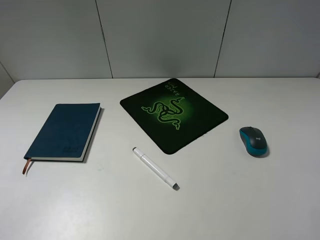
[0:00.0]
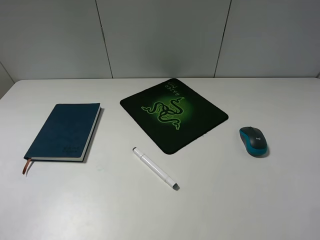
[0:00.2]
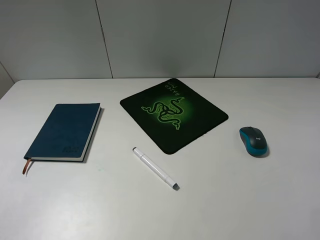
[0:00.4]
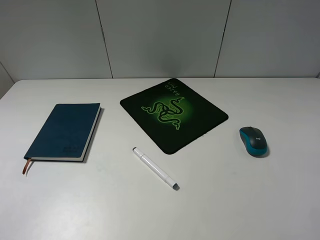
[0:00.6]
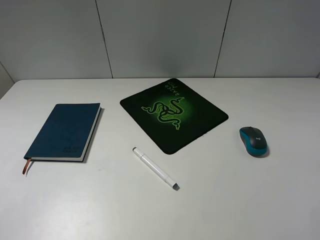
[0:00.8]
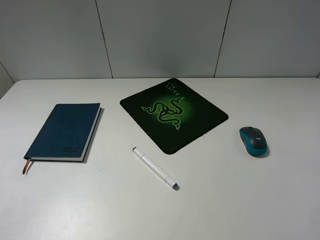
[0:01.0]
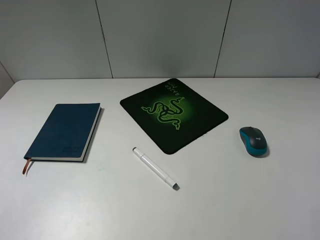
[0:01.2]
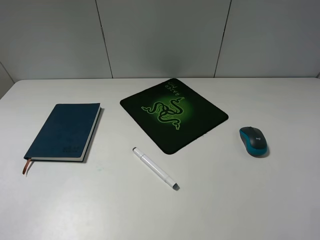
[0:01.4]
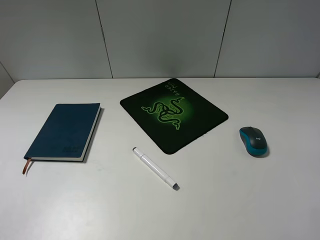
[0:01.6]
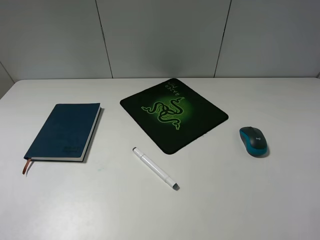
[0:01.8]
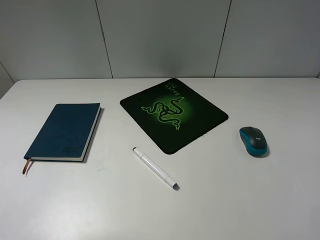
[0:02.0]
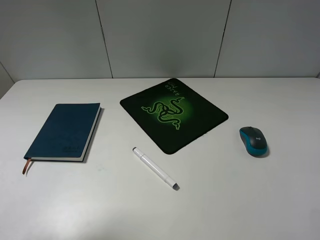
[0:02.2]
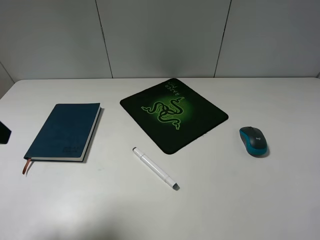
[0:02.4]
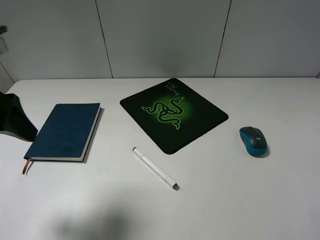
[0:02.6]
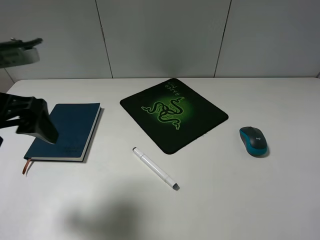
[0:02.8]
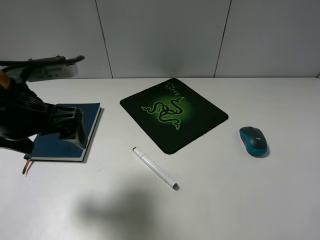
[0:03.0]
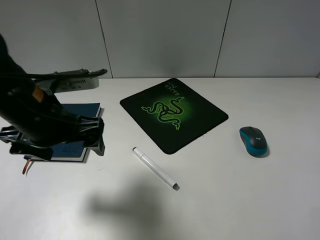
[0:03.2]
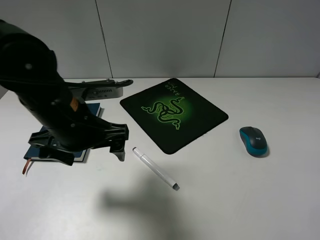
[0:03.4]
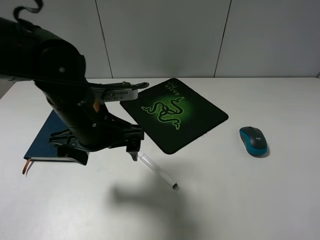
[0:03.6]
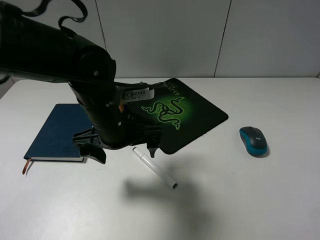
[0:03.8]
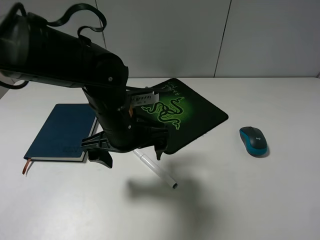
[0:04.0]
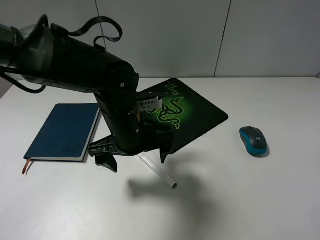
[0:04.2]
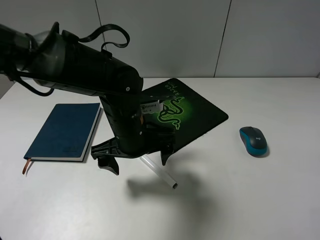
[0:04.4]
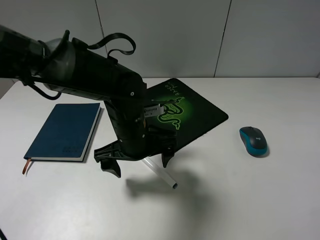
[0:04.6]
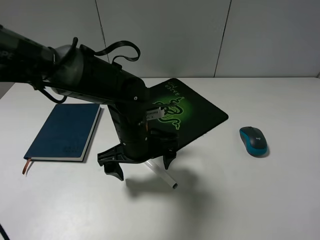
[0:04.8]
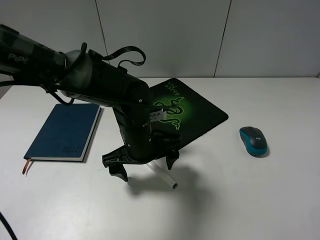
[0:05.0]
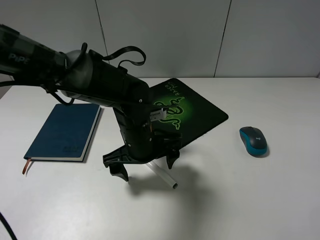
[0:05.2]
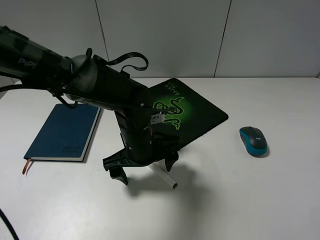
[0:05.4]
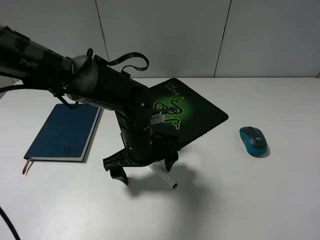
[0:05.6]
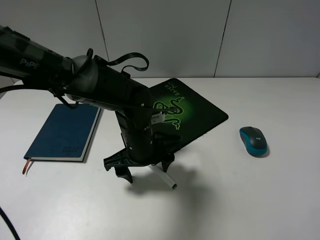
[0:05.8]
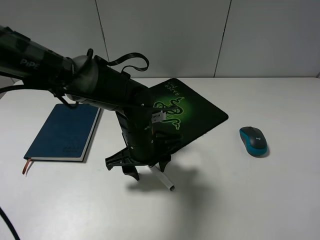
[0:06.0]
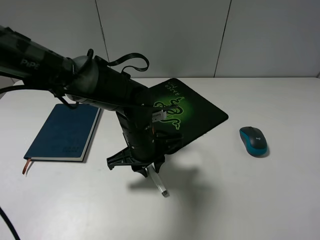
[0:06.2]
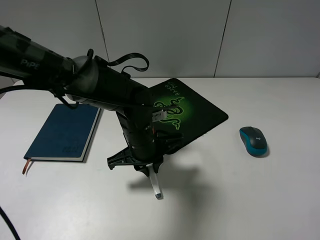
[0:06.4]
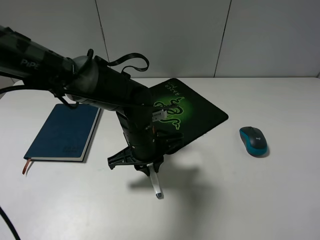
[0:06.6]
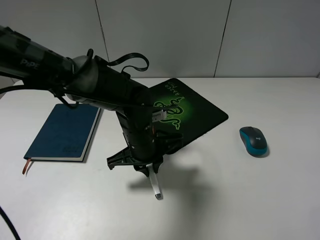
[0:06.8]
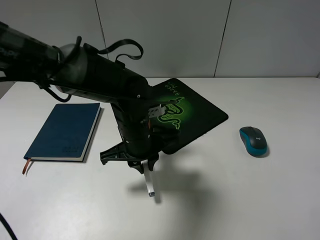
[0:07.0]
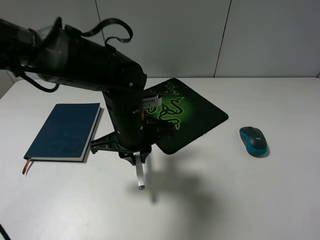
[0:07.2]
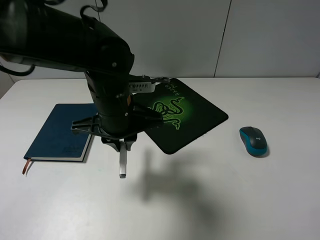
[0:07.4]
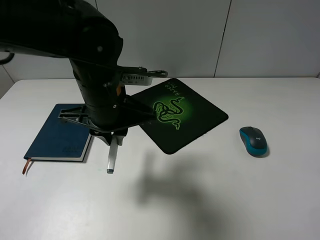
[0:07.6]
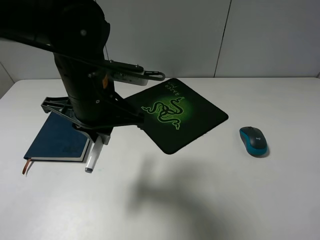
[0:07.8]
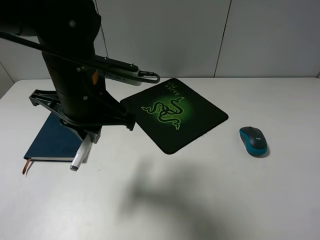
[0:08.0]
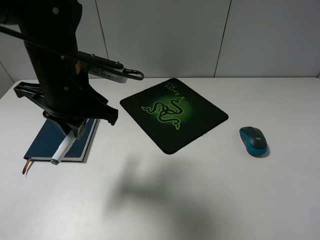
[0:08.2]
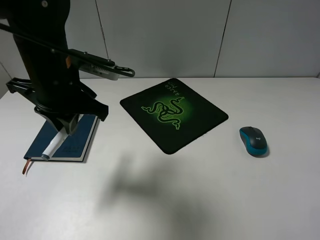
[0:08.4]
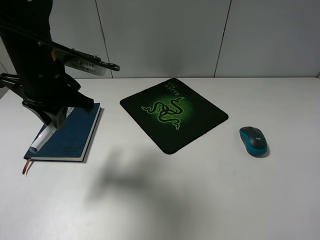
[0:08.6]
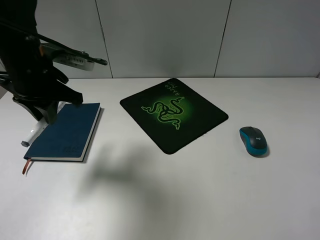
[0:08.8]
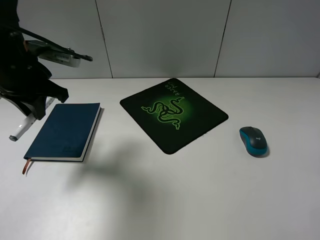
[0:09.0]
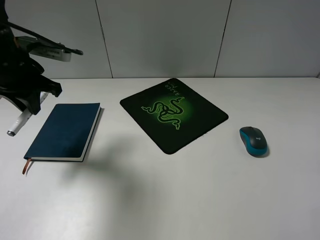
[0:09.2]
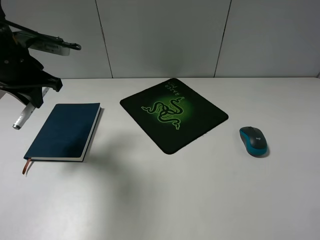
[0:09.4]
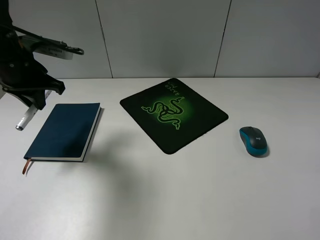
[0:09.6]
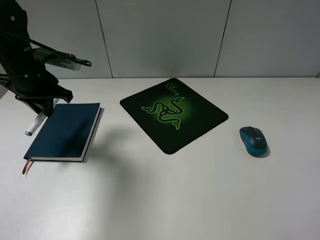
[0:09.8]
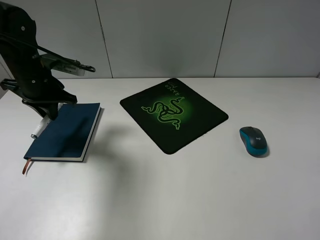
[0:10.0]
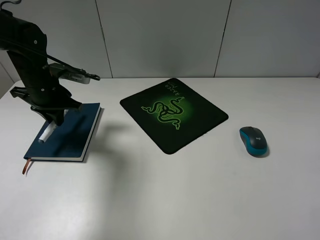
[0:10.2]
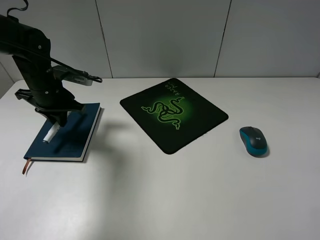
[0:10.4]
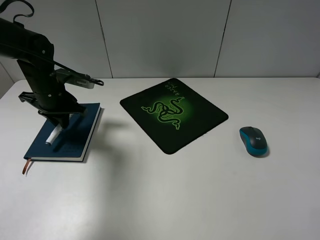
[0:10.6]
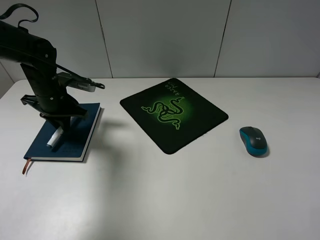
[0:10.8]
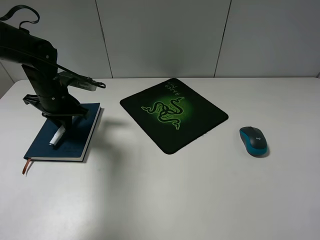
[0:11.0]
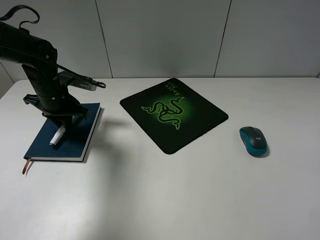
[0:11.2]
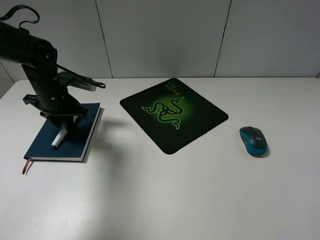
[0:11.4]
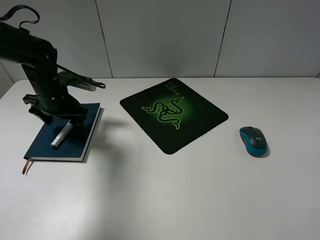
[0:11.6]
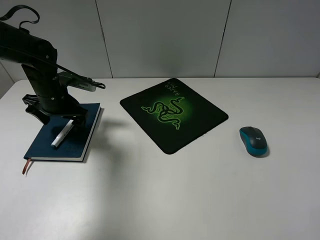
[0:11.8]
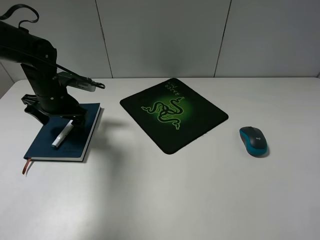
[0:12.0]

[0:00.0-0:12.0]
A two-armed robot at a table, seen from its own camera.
Step, 0:00.0 to 0:06.6: Grasp the marker with the left gripper.
Step, 0:06.8 to 0:11.6: Place the marker on the notebook with the left gripper.
0:01.6 to 0:03.0: The left gripper moves forward, to the right and downward, roughly 25 cm.
0:03.0 to 0:04.4: The left gripper goes approximately 15 cm to the right and downward.
0:04.4 to 0:06.0: The left gripper closes up.
0:06.0 to 0:07.6: The left gripper is displaced upward by roughly 10 cm, and closes its fingers.
0:07.6 to 0:09.0: The left gripper travels to the left by some 15 cm.
0:09.0 to 0:10.4: The left gripper travels downward and forward by some 10 cm.
0:10.4 to 0:12.0: The left gripper opens its fingers.

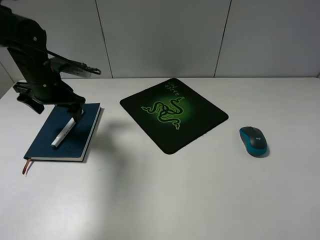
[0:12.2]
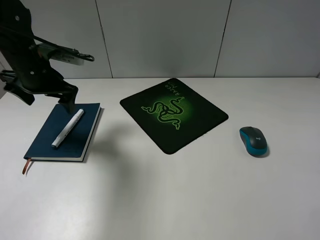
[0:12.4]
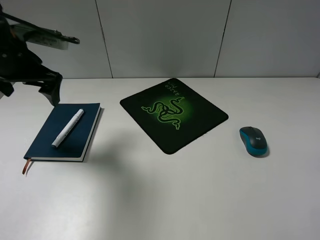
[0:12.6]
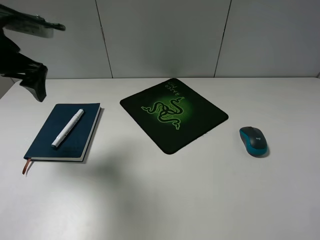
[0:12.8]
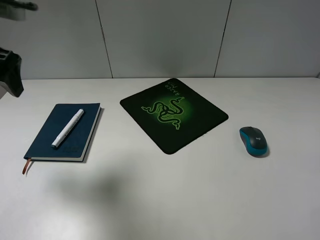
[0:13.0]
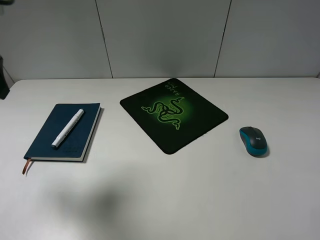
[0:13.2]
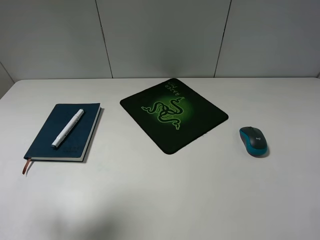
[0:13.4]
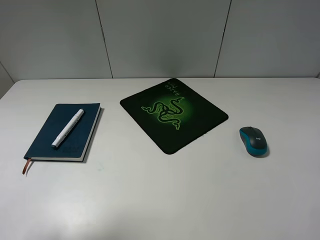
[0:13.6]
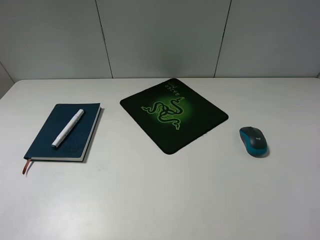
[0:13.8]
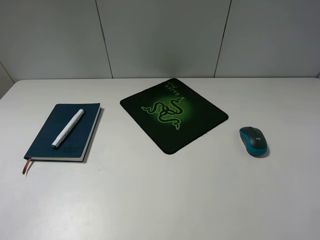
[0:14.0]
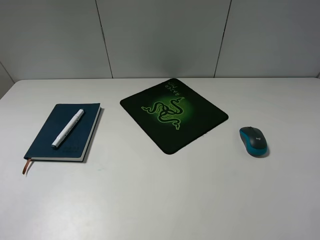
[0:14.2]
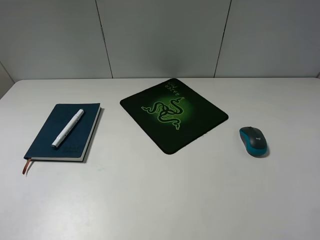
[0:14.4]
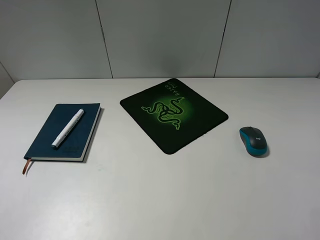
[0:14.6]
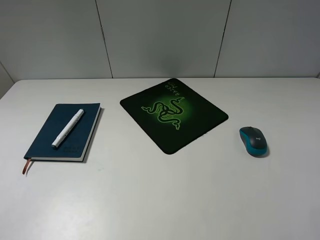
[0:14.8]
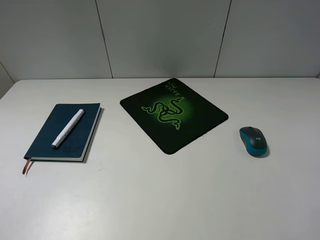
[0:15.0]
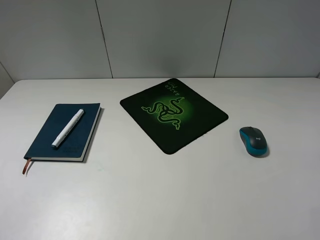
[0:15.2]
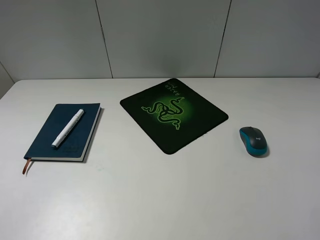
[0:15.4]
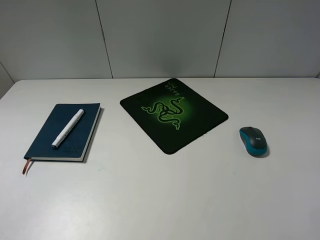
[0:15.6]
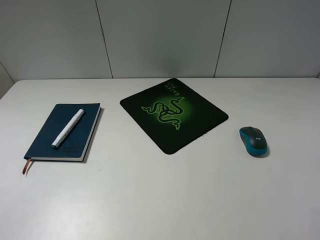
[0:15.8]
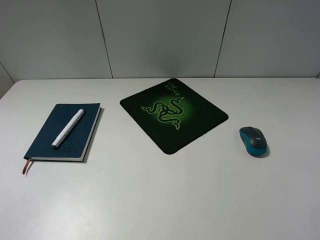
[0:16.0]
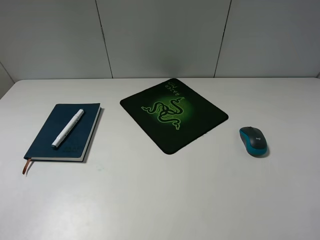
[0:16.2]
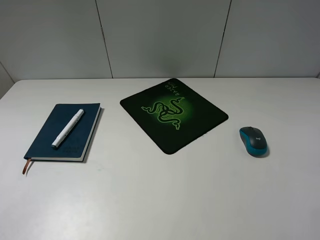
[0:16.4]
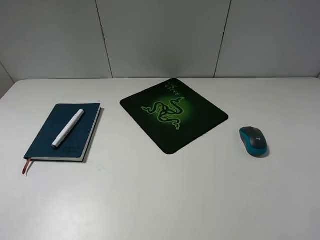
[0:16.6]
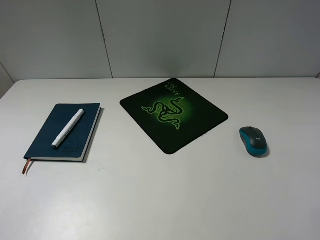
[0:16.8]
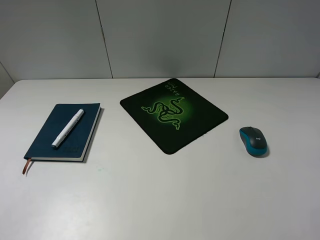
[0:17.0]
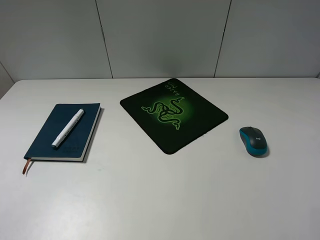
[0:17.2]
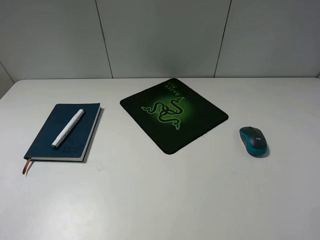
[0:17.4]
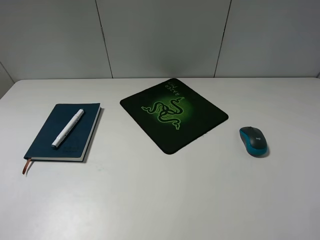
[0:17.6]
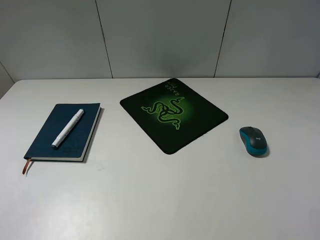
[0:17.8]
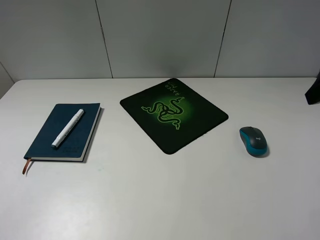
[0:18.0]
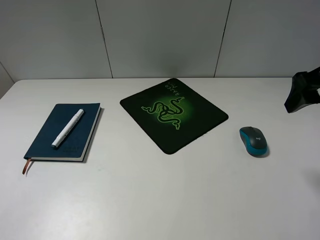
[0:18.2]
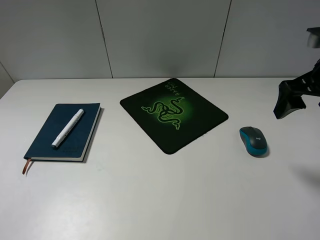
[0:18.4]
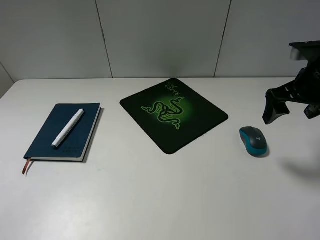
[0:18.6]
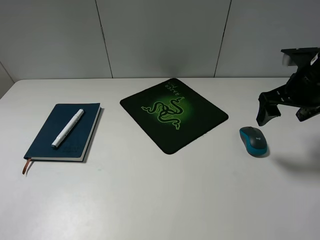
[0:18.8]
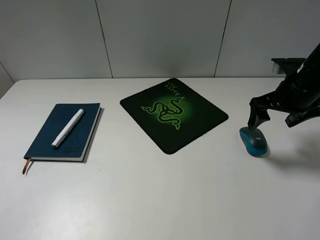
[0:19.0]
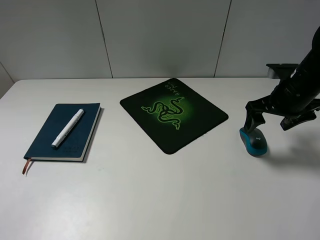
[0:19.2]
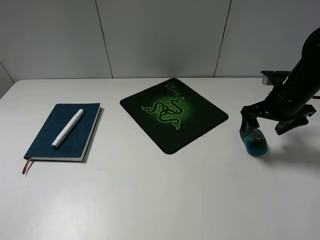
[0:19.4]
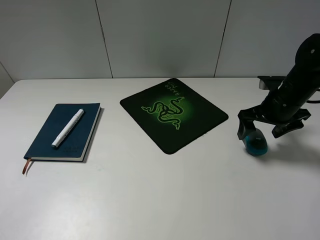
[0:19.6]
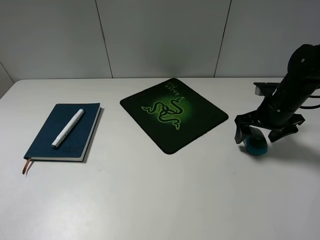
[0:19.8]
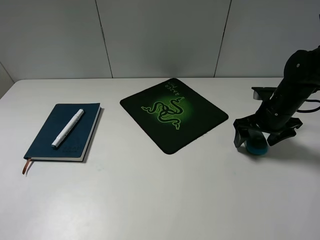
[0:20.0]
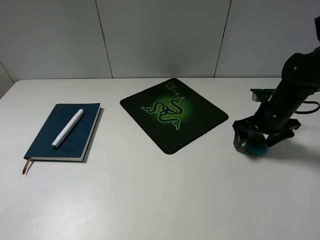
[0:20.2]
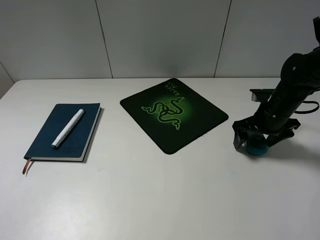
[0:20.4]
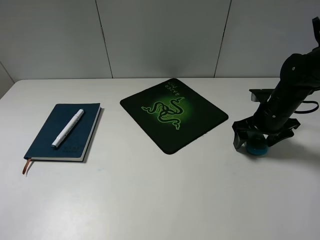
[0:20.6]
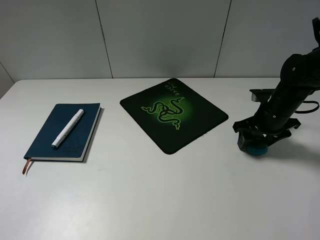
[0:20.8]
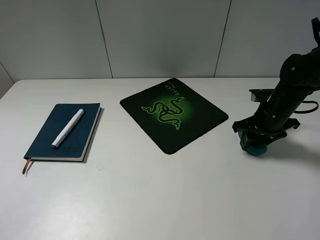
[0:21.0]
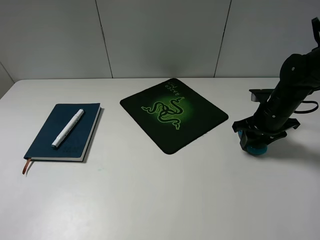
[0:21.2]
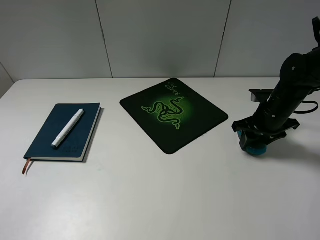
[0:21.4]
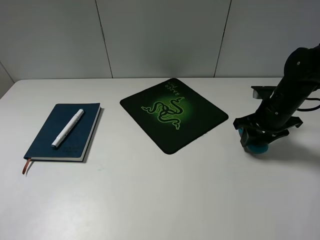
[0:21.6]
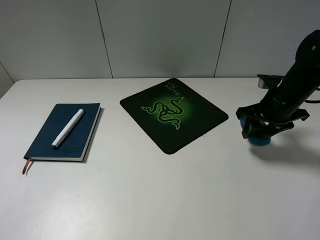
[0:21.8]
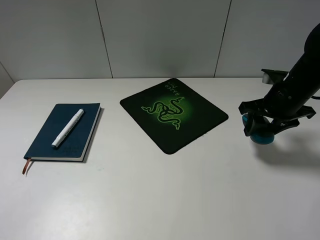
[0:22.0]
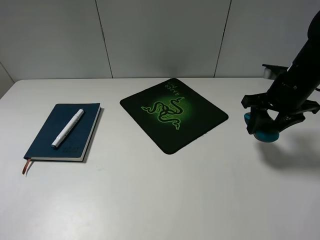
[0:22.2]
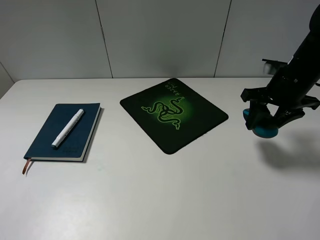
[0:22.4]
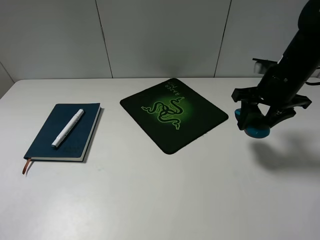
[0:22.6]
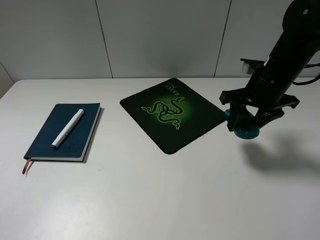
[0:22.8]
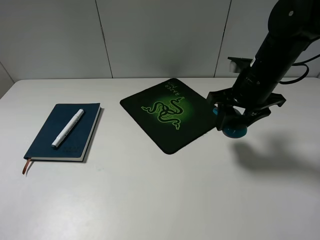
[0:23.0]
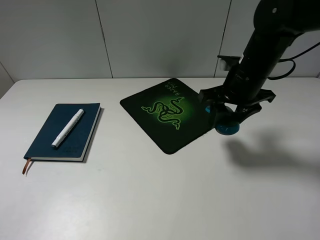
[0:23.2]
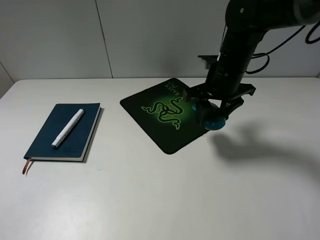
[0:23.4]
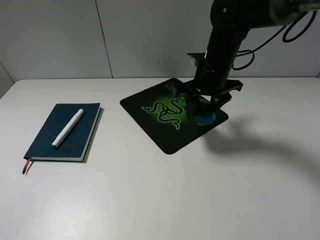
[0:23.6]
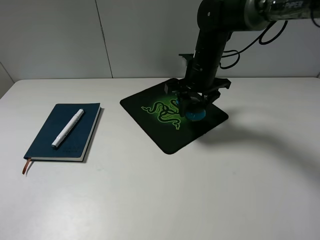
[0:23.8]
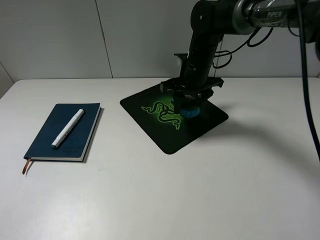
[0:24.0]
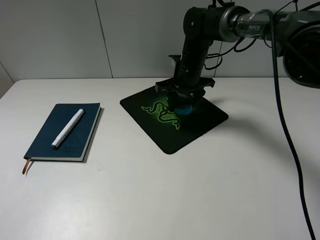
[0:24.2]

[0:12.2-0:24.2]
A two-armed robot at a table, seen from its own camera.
Step, 0:12.2 to 0:21.0: Grasp the mouse with the right gripper.
0:12.2 to 0:13.8: The left gripper travels backward and upward by some 35 cm.
0:15.2 to 0:16.6: The two grippers keep their place.
0:16.6 to 0:18.2: The right gripper travels forward by some 25 cm.
0:18.2 to 0:19.8: The right gripper moves downward and forward, approximately 20 cm.
0:19.8 to 0:21.2: The right gripper closes.
0:21.2 to 0:22.6: The right gripper is displaced upward by approximately 10 cm.
0:22.6 to 0:24.2: The right gripper moves to the left and forward, roughly 20 cm.
